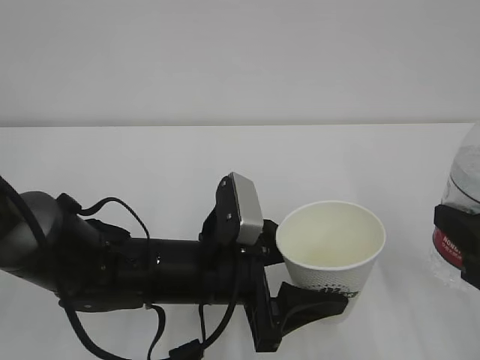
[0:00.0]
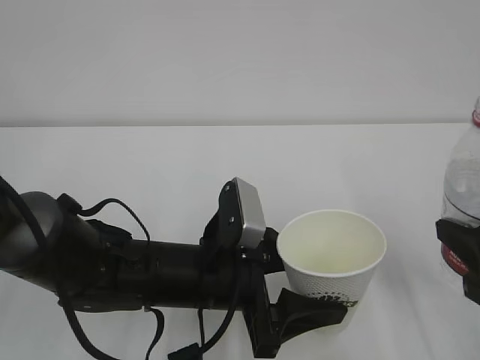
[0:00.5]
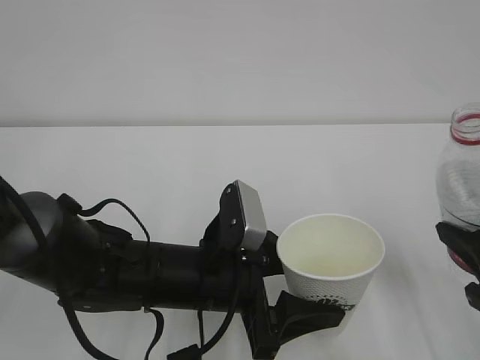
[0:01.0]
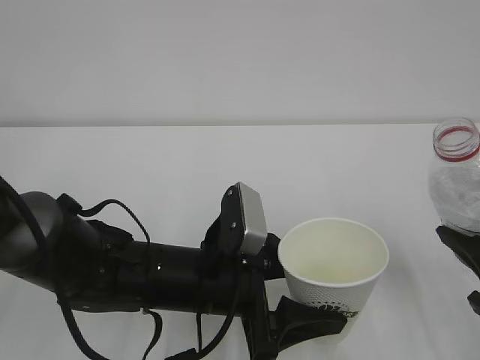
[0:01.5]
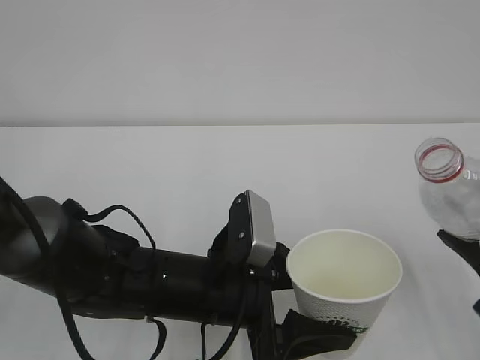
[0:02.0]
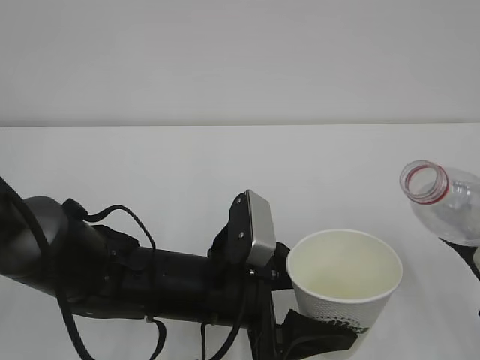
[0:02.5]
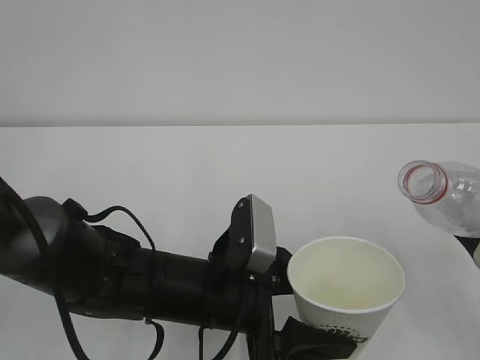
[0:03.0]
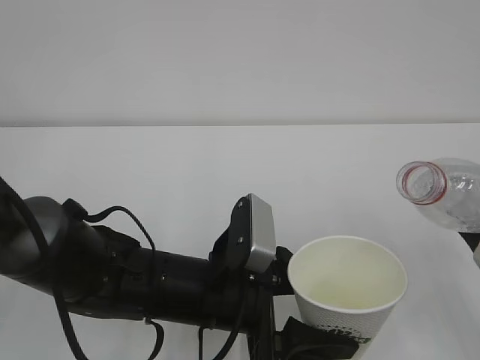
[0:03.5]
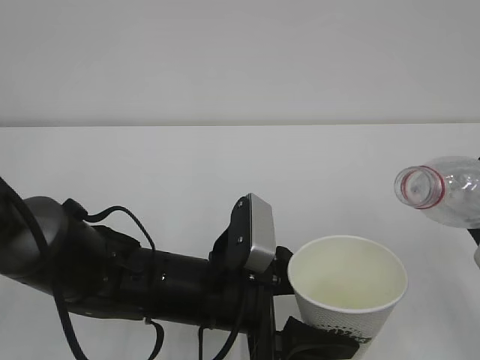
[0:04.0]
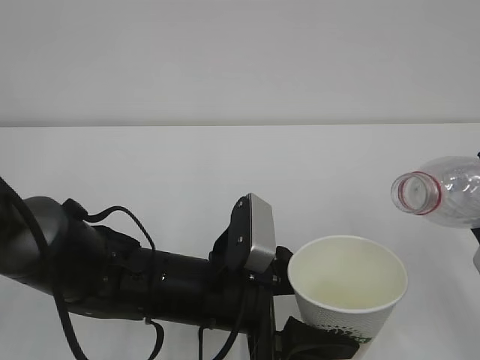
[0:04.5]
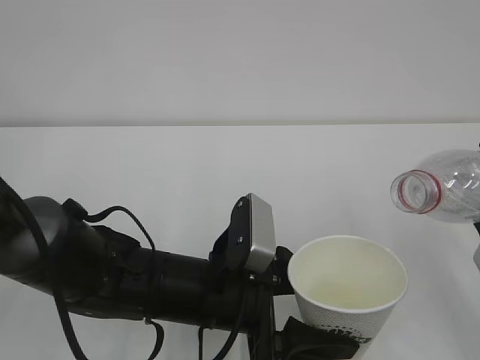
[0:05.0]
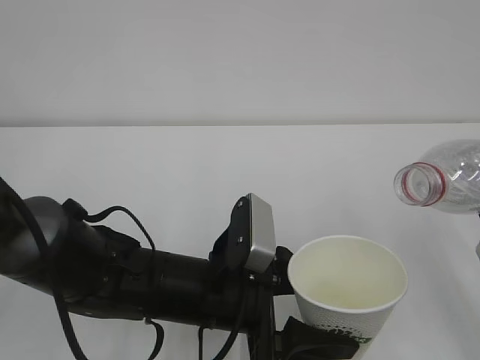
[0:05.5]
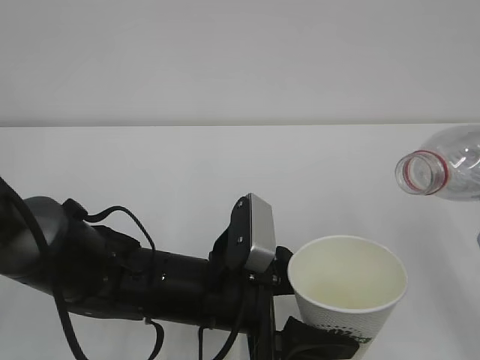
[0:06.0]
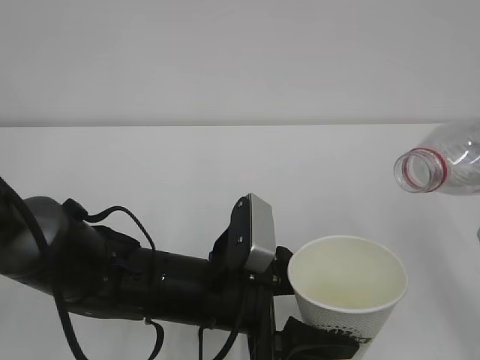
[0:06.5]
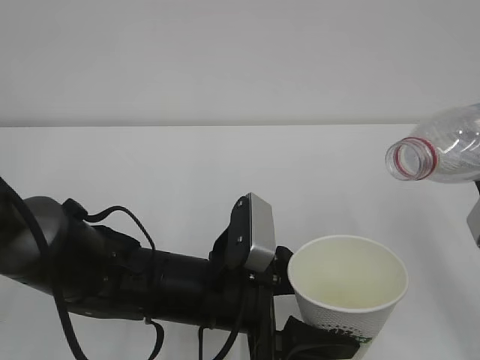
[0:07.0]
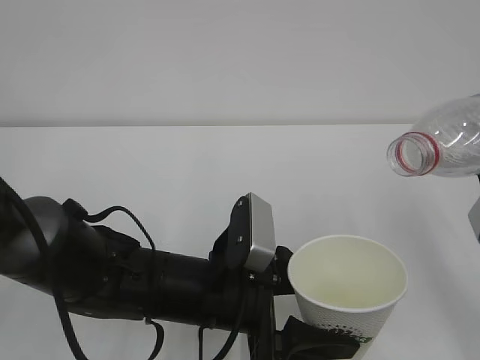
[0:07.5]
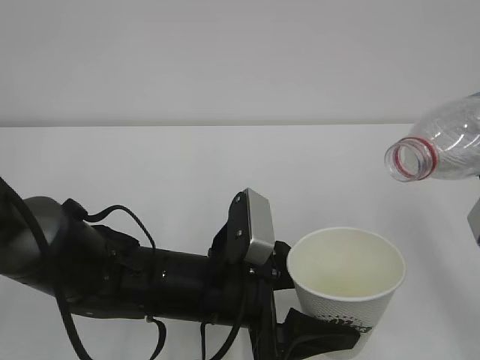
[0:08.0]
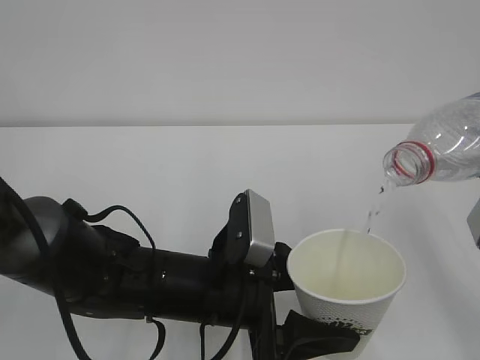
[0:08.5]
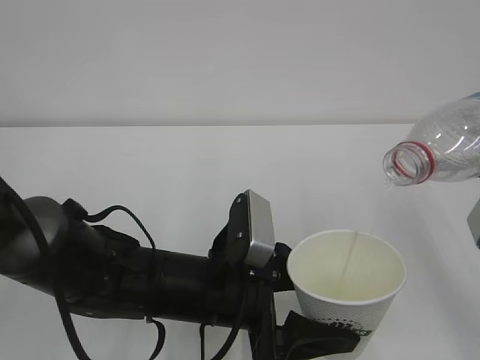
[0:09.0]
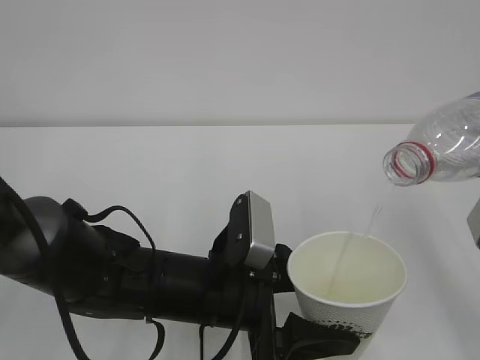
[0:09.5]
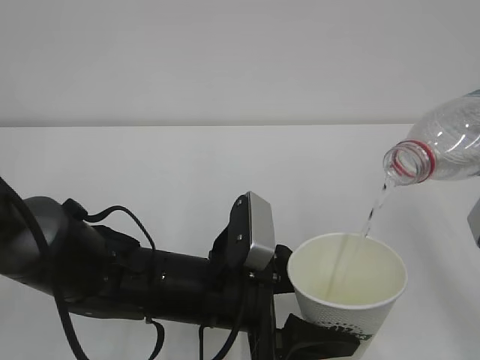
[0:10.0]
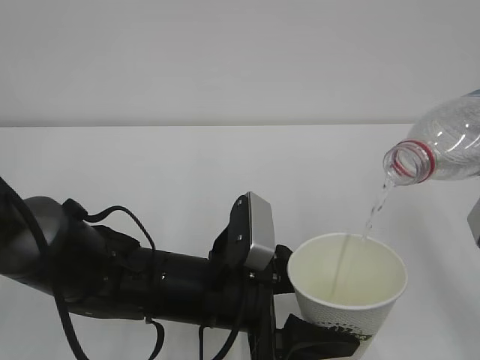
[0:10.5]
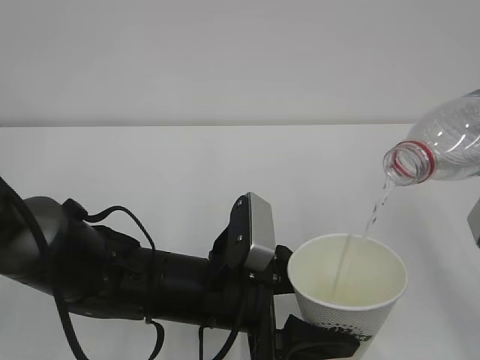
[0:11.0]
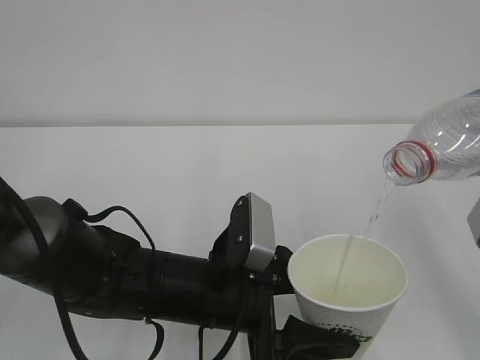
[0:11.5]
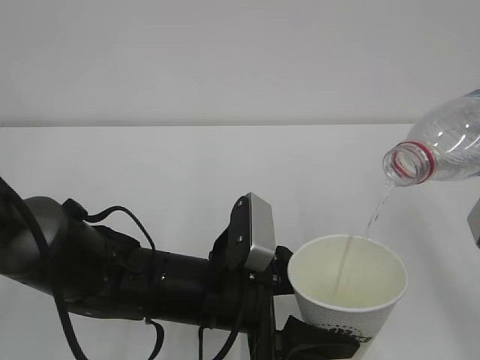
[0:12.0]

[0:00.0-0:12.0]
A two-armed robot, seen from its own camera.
0:04.0 to 0:06.0: The grippers make only small movements.
0:06.0 to 0:08.0: The grippers move only a little.
0:08.0 to 0:12.0: Both grippers stay about where they are.

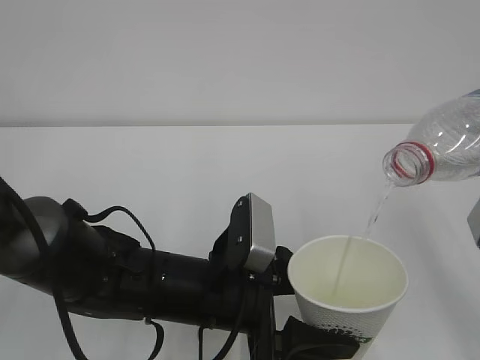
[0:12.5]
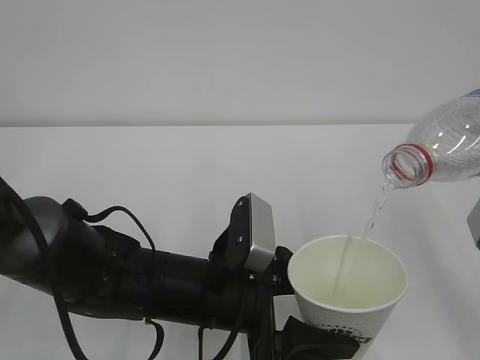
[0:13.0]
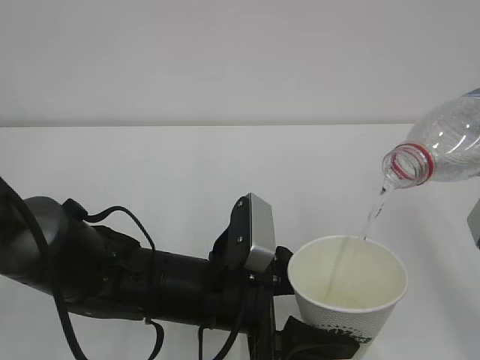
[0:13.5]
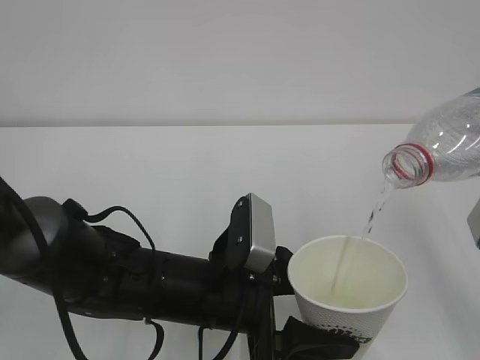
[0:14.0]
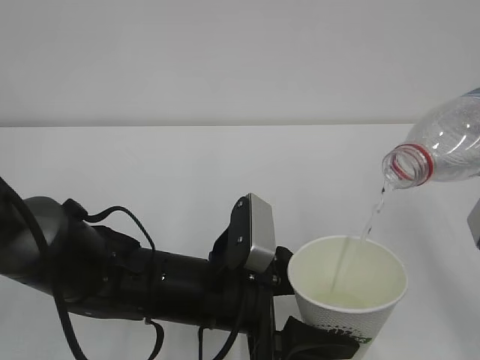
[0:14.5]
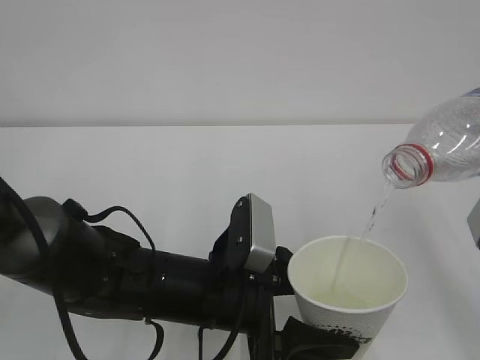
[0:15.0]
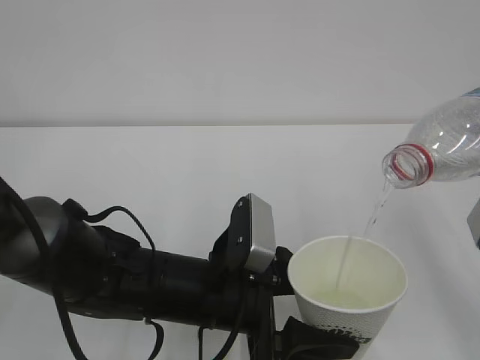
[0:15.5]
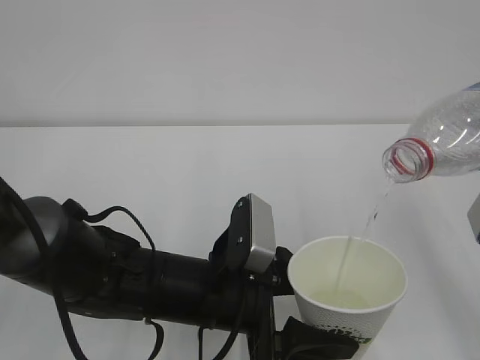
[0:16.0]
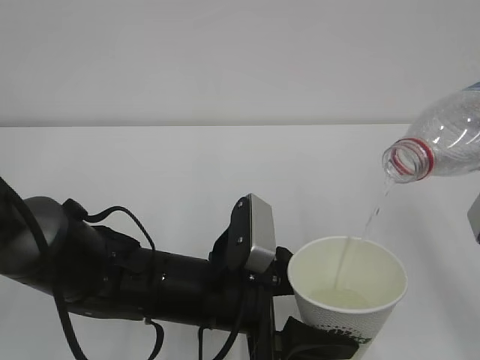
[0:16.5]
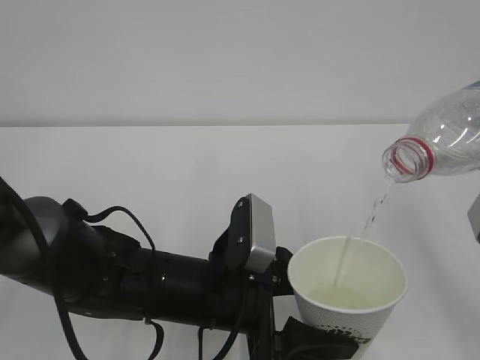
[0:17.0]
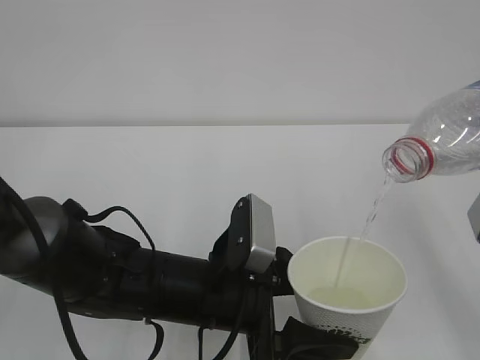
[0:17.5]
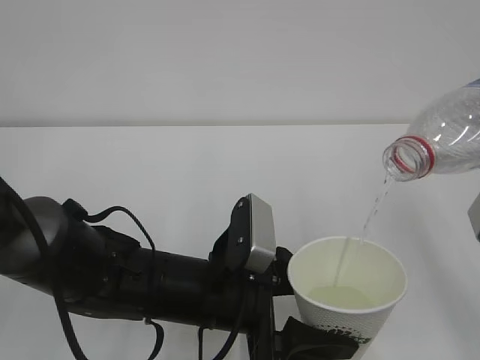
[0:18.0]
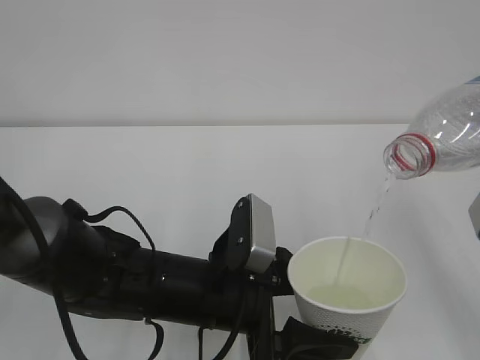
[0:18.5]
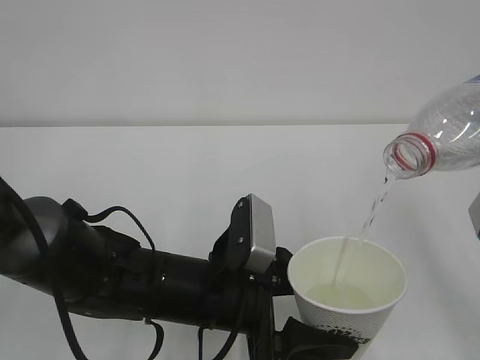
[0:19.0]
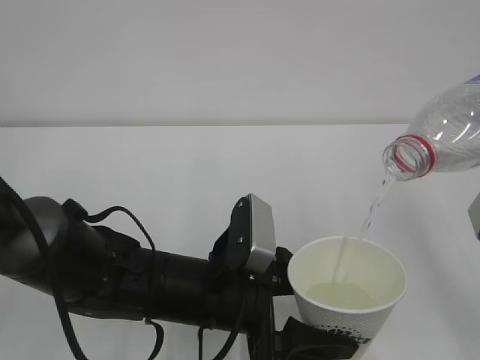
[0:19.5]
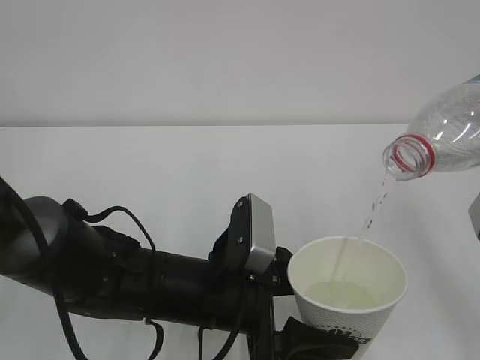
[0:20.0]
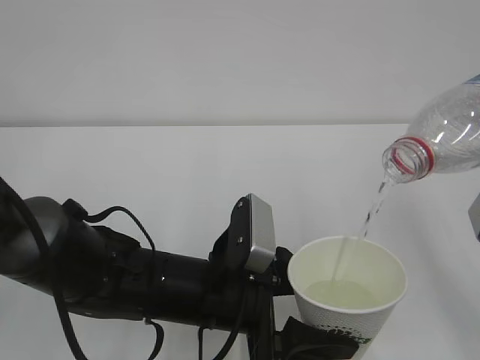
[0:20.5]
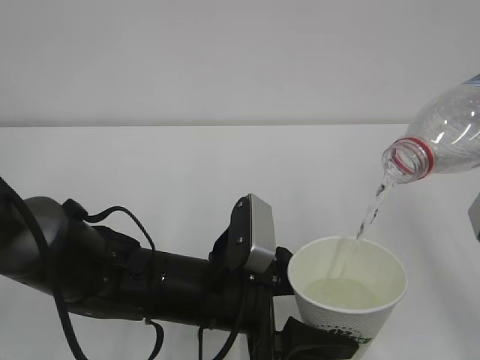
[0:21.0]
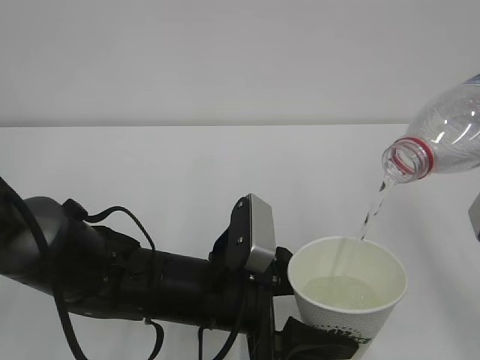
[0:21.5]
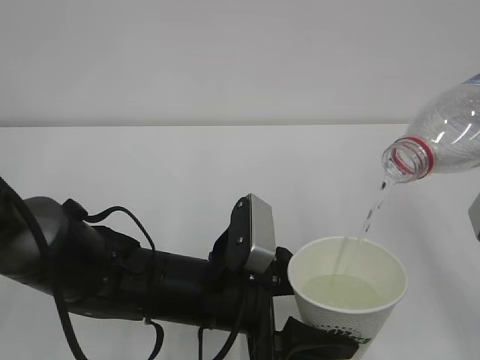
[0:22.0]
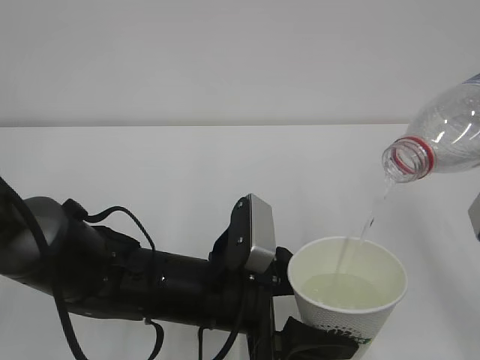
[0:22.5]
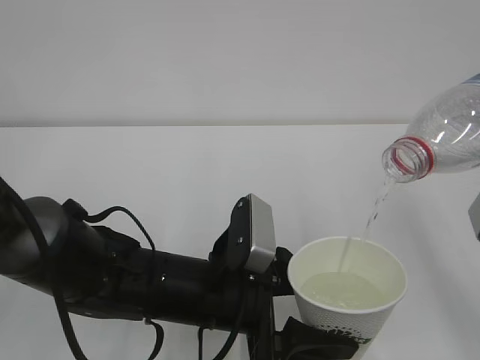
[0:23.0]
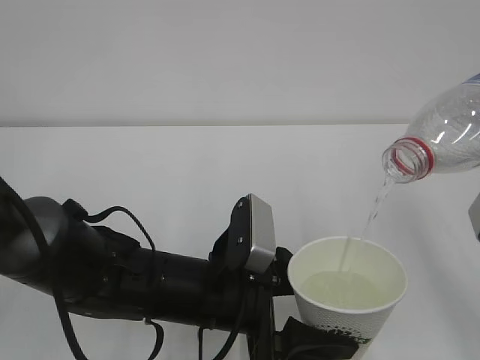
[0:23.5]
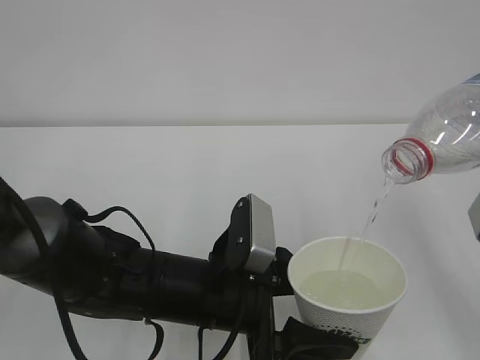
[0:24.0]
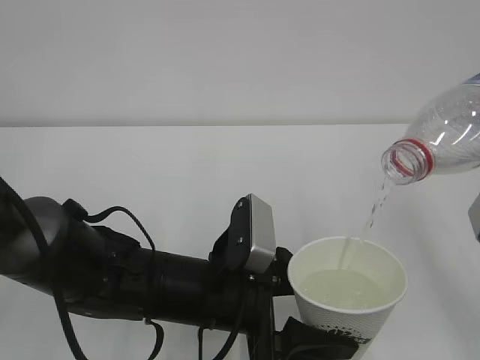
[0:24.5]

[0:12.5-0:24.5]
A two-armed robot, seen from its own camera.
0:12.5 to 0:18.5: Neither gripper changes place.
0:18.5 to 0:24.5: The two grippers keep their place.

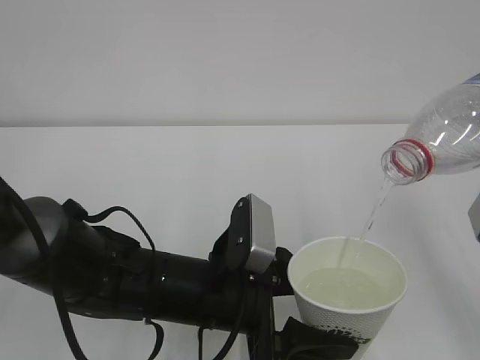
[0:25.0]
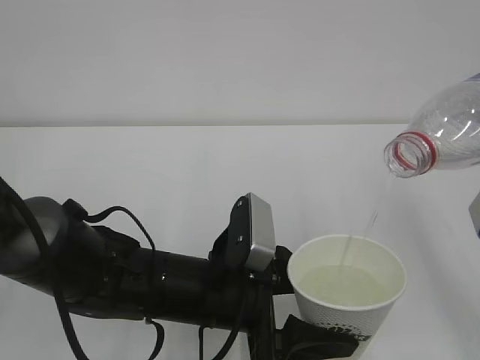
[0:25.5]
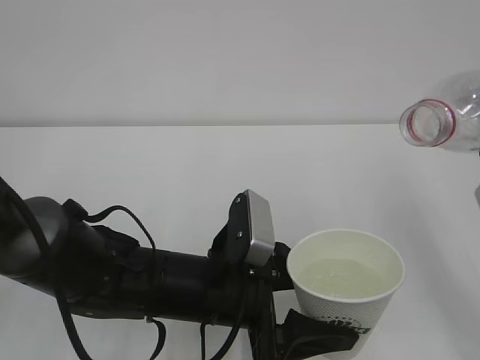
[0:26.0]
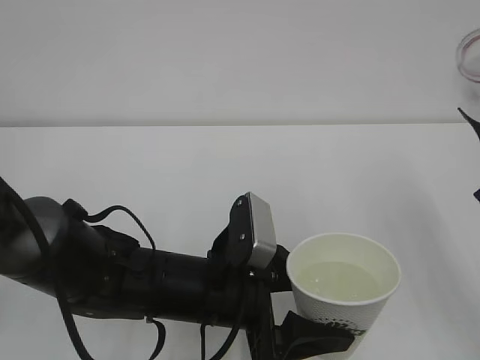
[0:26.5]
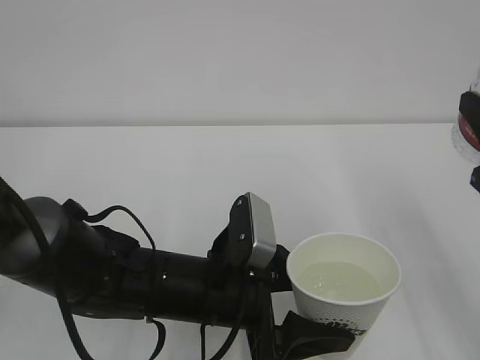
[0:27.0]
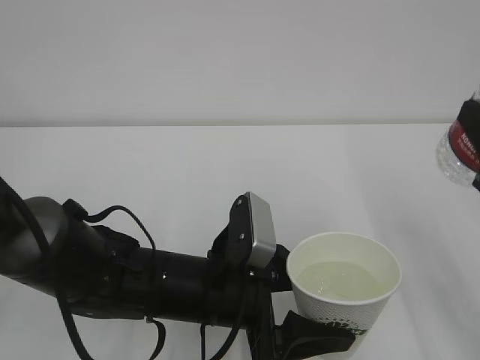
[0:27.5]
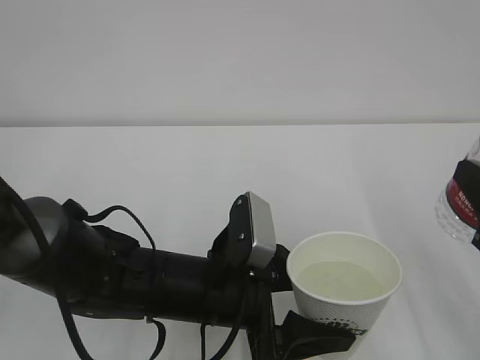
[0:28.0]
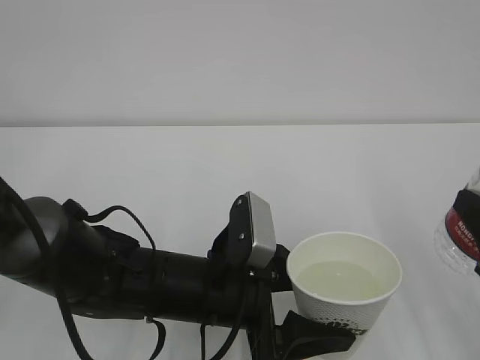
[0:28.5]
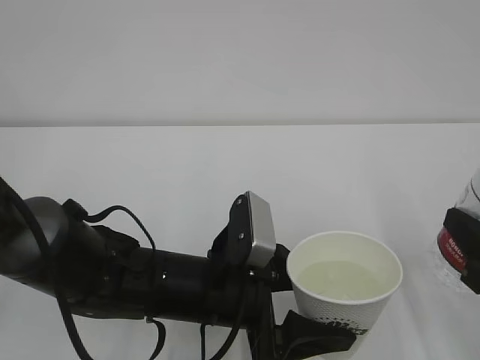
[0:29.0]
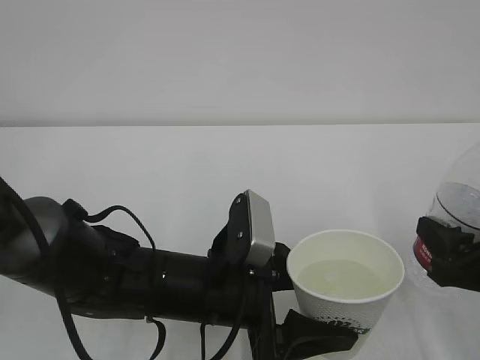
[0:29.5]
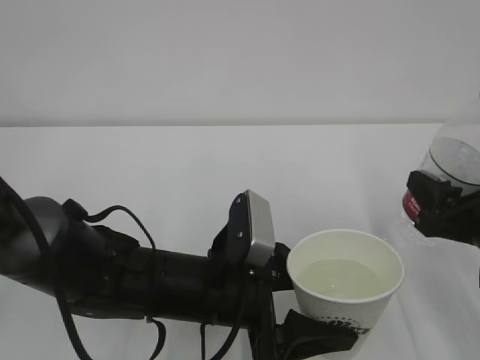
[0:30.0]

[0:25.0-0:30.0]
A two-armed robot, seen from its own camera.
0:27.5 to 0:30.0: The right gripper is displaced downward by some 10 cm.
